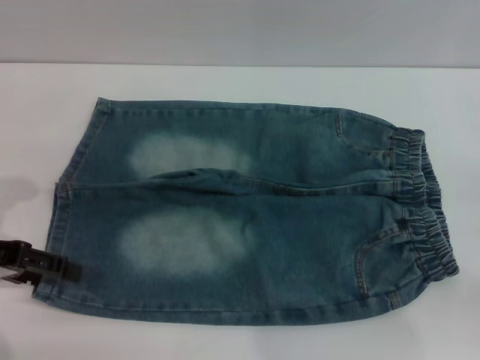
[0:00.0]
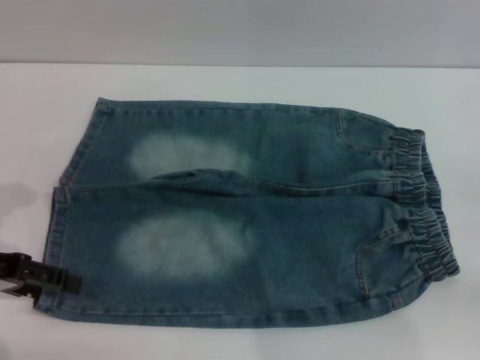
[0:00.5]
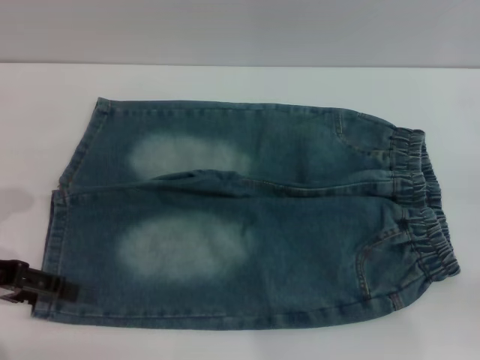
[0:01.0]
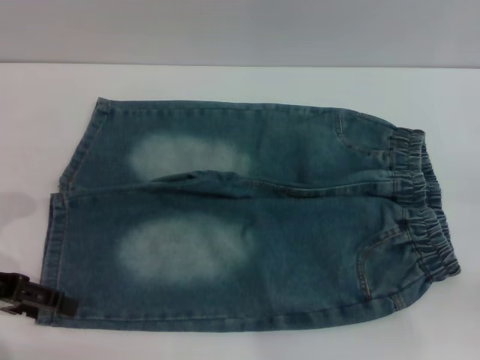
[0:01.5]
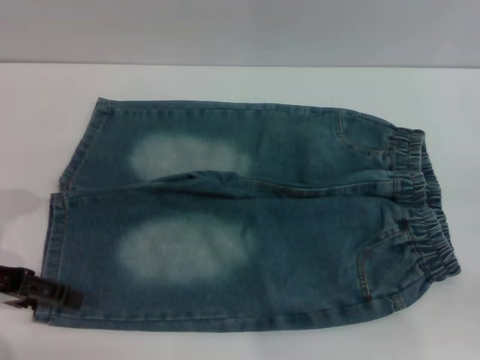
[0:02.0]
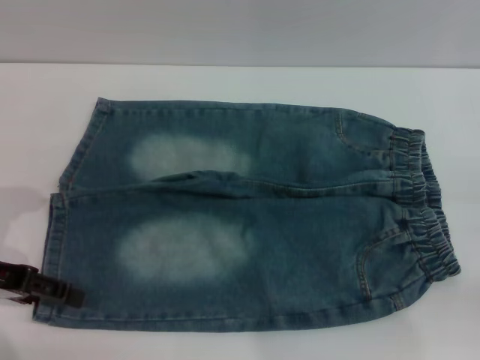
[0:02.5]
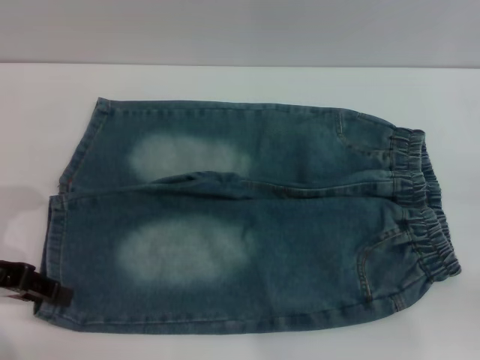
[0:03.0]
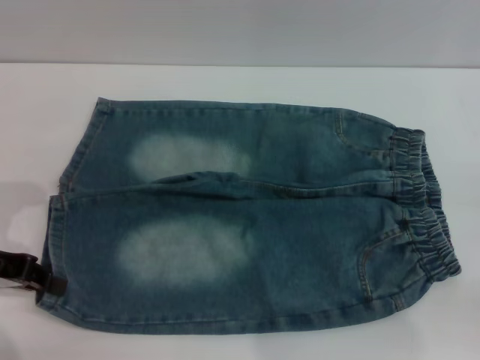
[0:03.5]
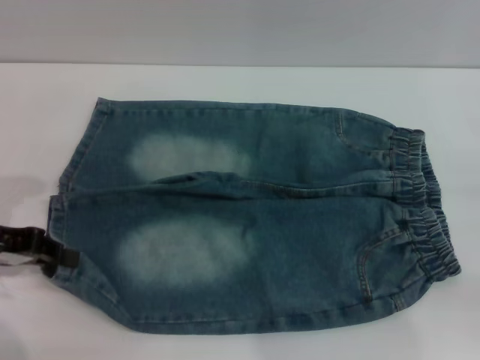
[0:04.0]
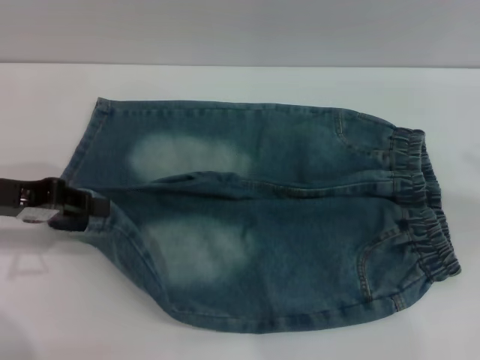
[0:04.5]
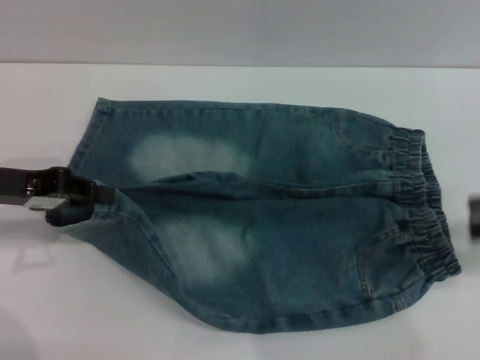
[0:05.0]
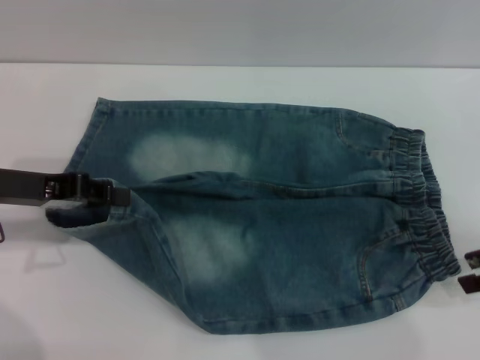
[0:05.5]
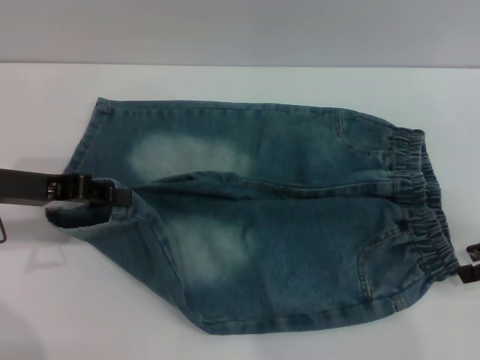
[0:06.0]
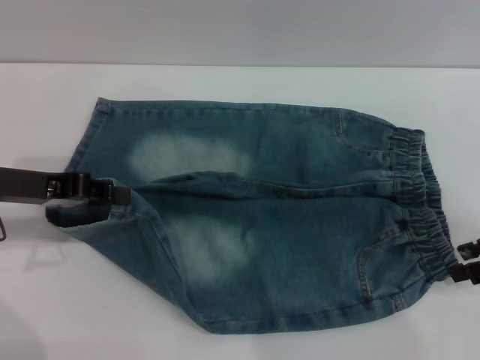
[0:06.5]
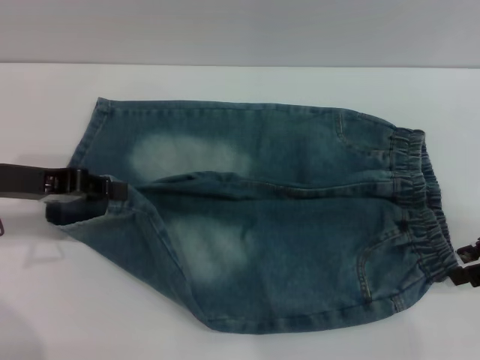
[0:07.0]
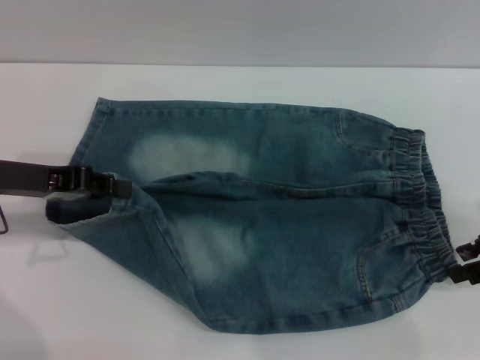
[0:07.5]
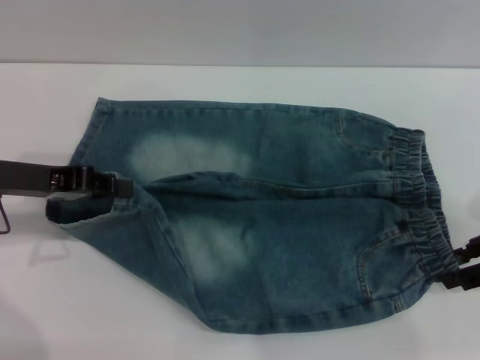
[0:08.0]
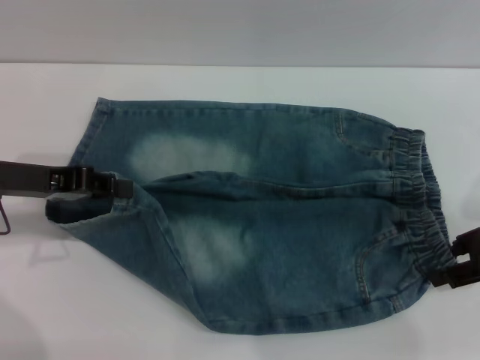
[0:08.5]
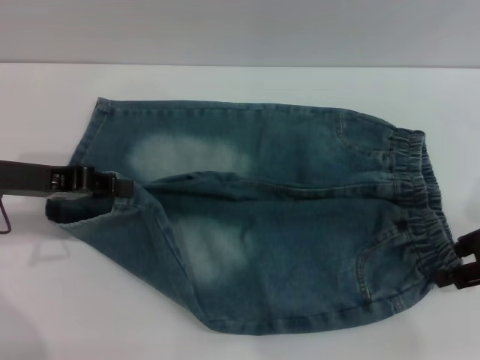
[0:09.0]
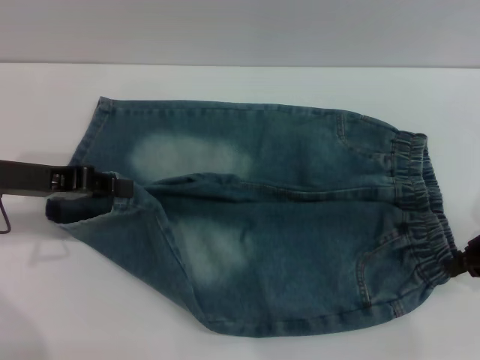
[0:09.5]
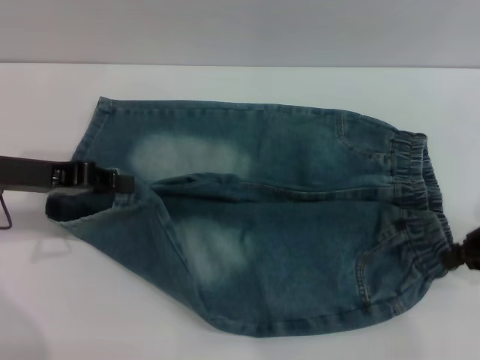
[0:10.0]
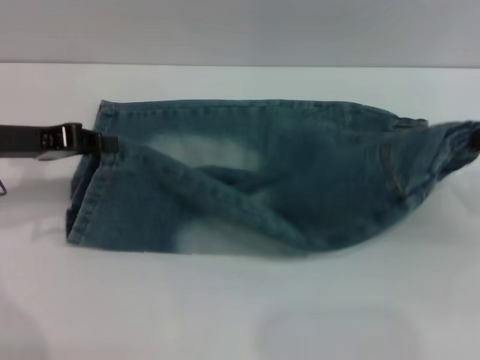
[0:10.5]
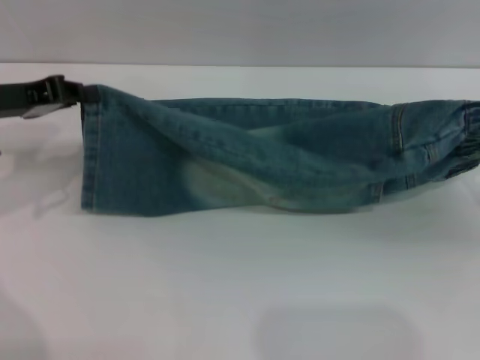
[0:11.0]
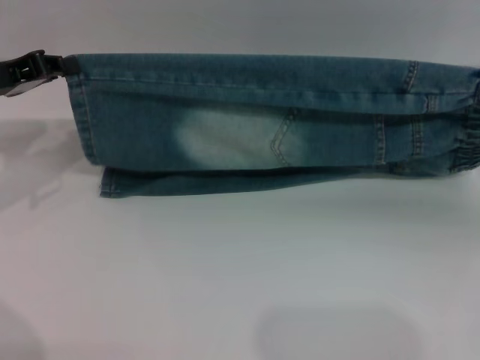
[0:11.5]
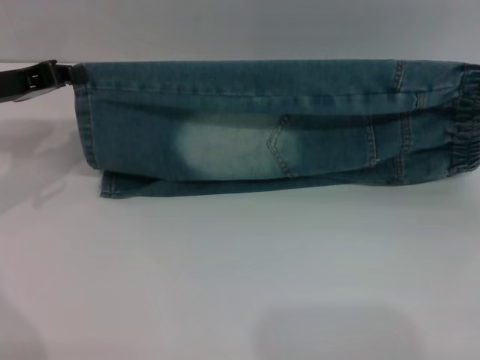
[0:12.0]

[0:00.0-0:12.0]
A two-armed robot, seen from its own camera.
0:00.0 to 0:02.0: The grippers move only a little.
0:02.0 to 0:04.0: The left gripper closes.
0:04.0 to 0:06.0: The right gripper moves to the left and forward, roughly 10 cm.
0:06.0 to 0:08.0: The grippers move only a little.
0:08.0 to 0:10.0: The right gripper closes up.
0:10.0 to 0:12.0: The left gripper ends up approximately 5 cm from where it was. Meanwhile the right gripper shifts by some 5 cm.

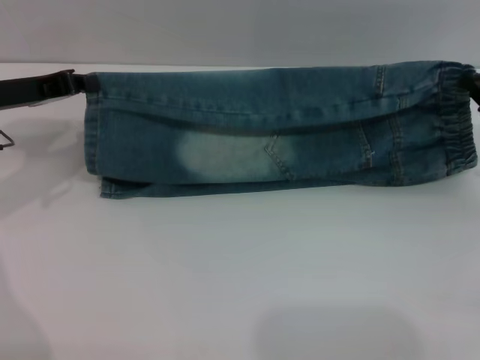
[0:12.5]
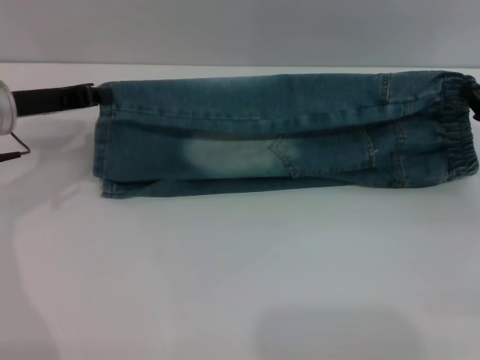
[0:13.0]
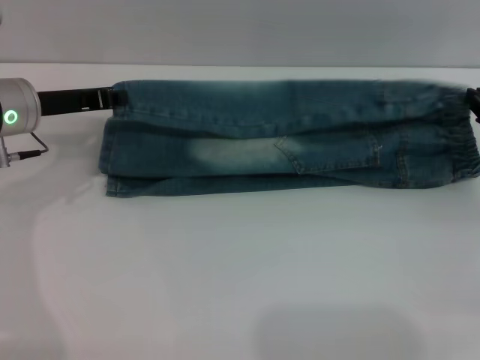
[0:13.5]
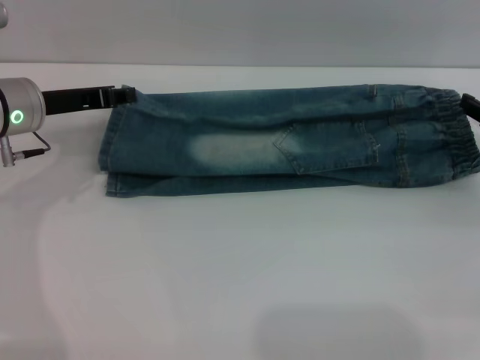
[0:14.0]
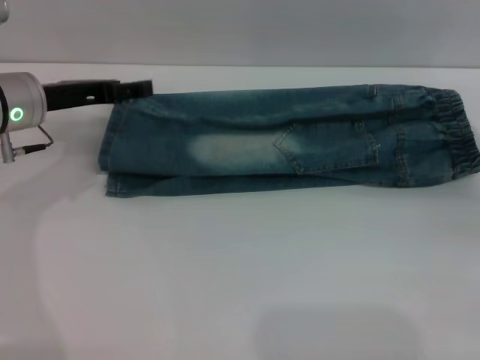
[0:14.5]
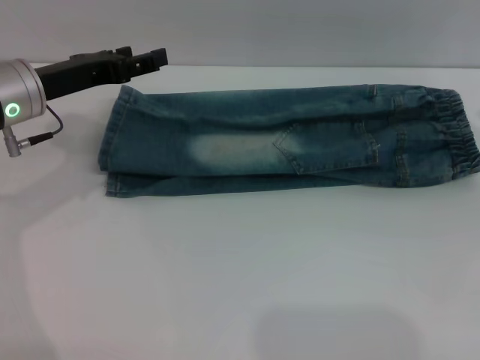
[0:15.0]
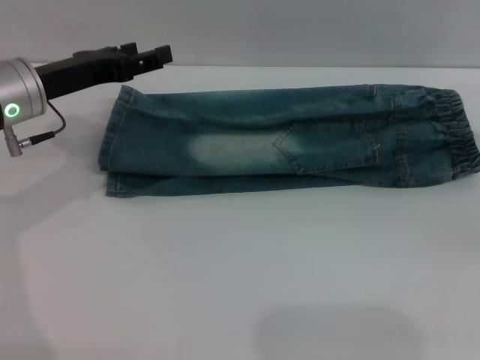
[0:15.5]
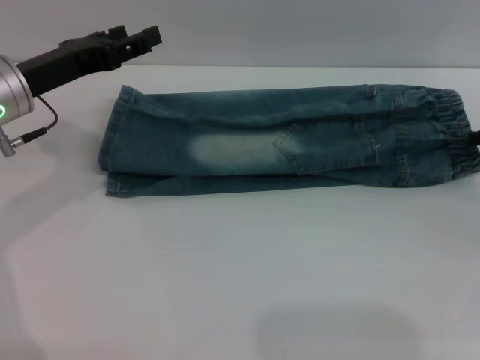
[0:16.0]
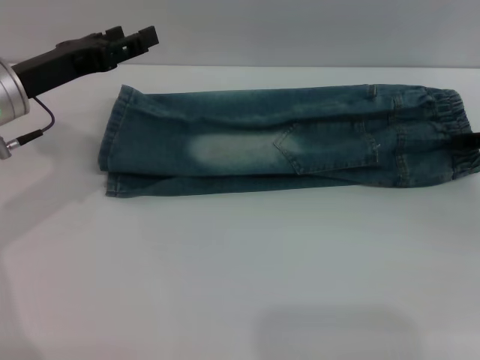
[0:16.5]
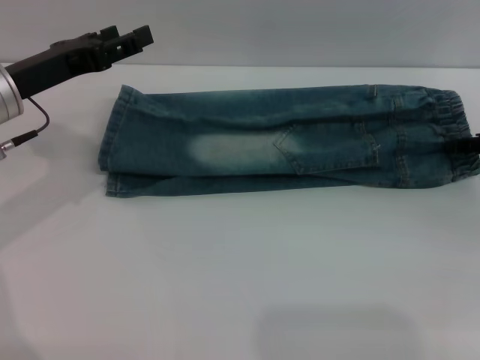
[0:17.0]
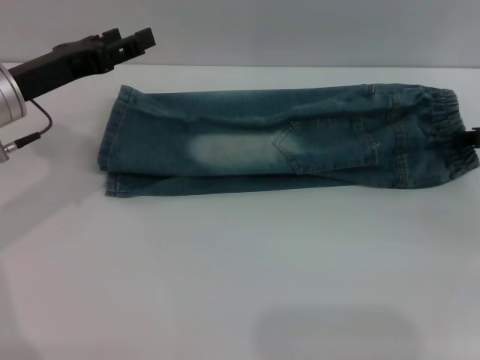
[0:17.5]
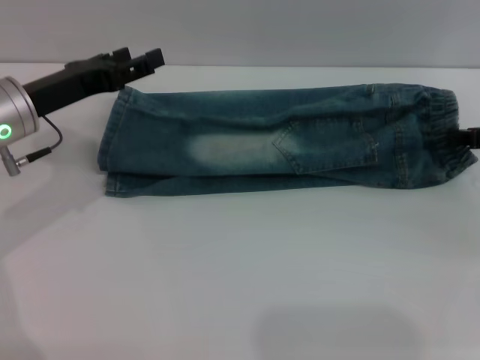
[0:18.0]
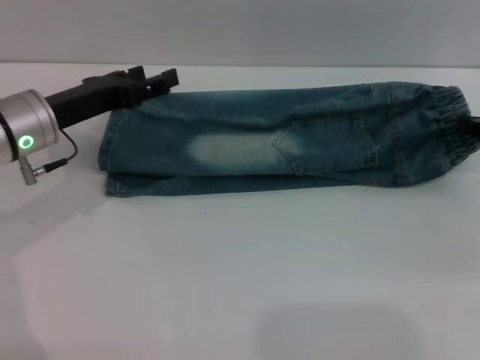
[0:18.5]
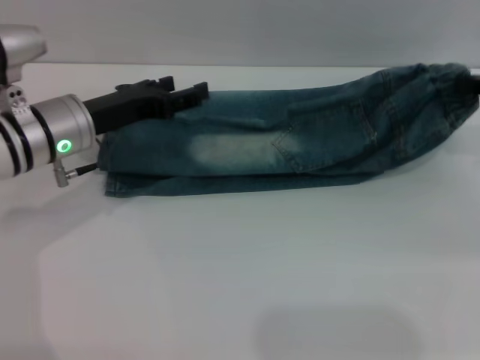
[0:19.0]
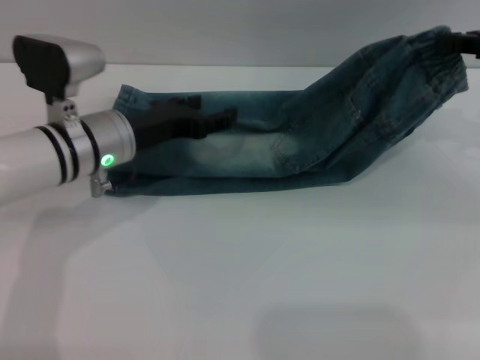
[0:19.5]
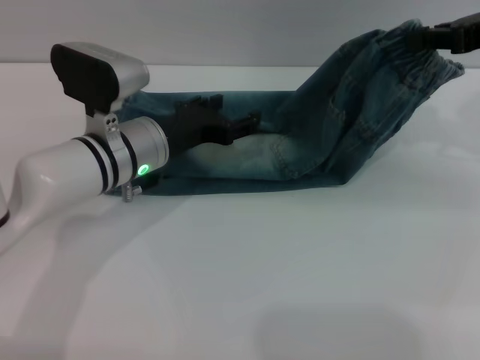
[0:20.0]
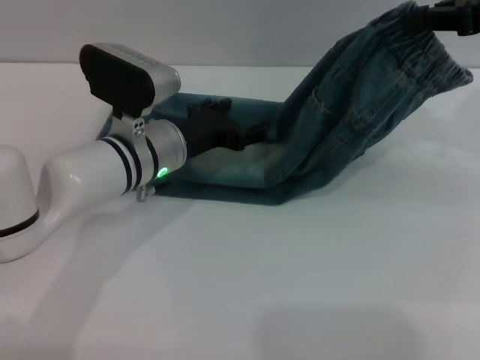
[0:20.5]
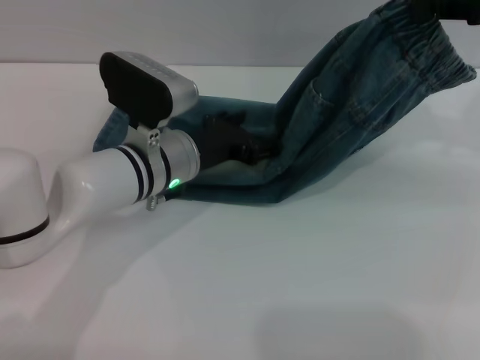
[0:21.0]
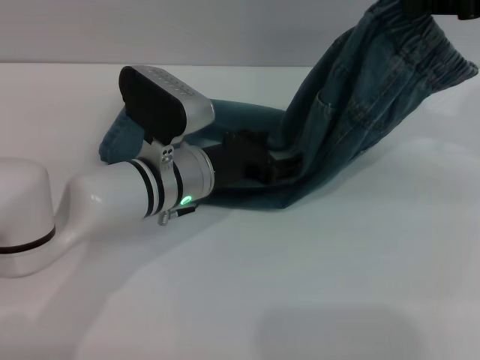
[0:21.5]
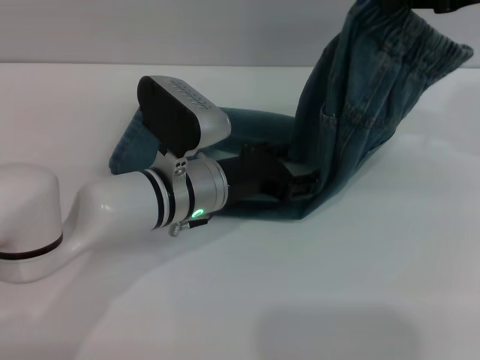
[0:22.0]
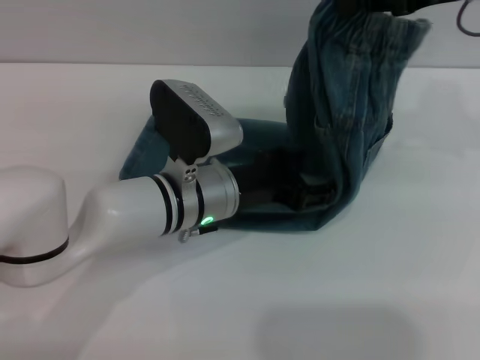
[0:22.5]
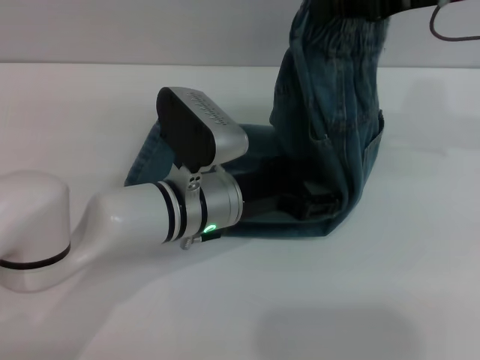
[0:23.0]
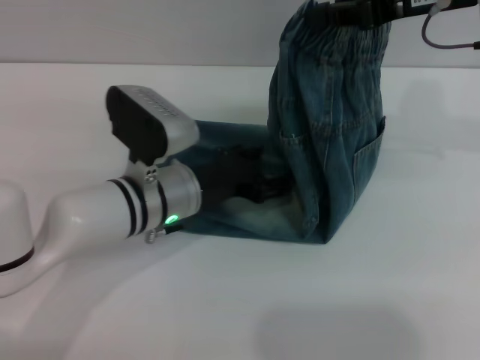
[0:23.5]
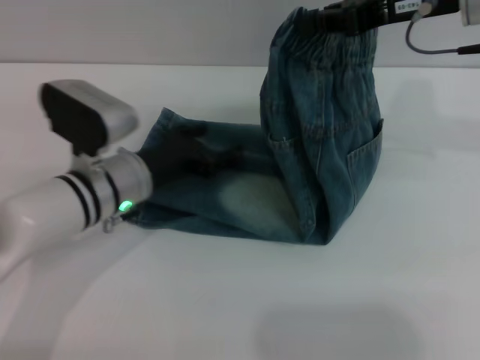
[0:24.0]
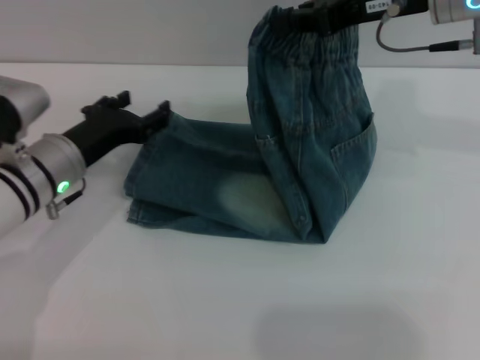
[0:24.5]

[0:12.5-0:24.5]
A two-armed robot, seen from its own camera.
Step, 0:12.5 to 0:14.5: Fold the bottom of the pants upward with both grippers.
0:12.5 to 0:14.5: The right gripper opens. Meanwhile the left gripper opens up.
0:16.5 to 0:18.5: The right gripper closes.
0:18.5 to 0:20.5: The left gripper heads to the right, covering about 10 cm. Meanwhile the right gripper travels upward by approximately 15 cm.
0:20.5 to 0:22.5: The right gripper heads to the left, covering roughly 5 cm. Meanwhile the left gripper shifts by roughly 5 cm.
0:22.5 to 0:24.5: The left gripper is displaced to the left by roughly 15 cm. Meanwhile the right gripper shifts some 5 cm to the left.

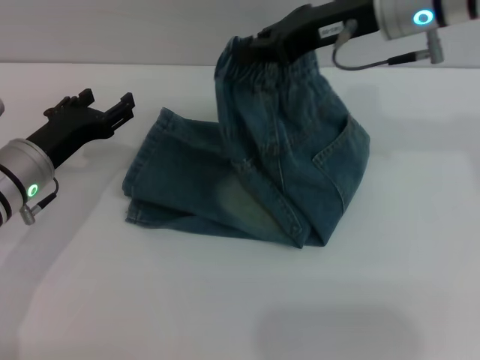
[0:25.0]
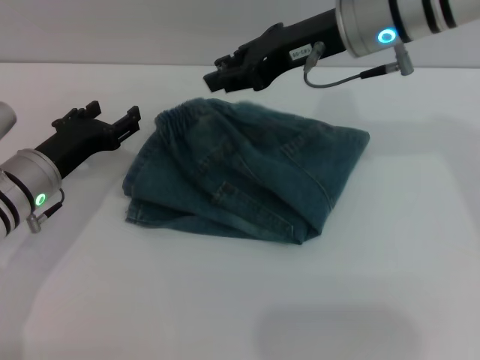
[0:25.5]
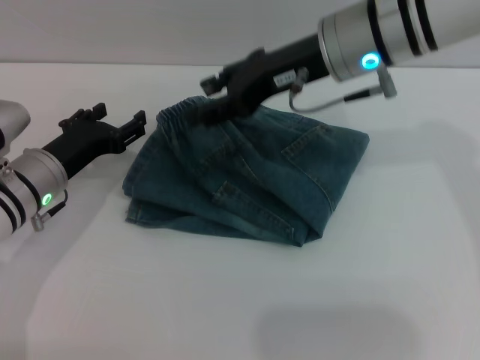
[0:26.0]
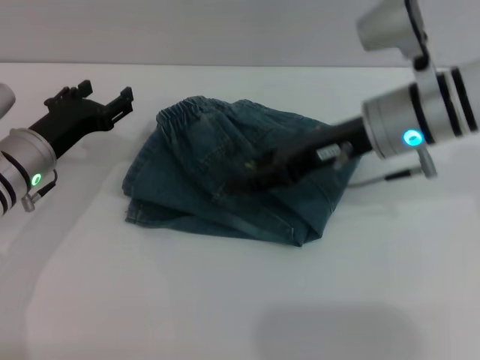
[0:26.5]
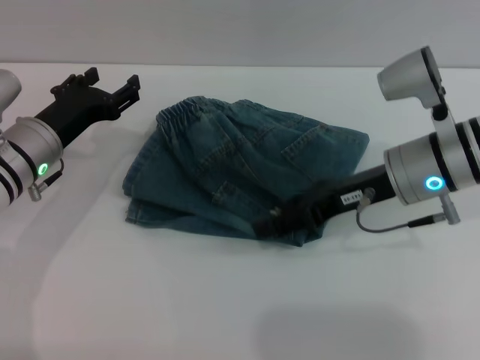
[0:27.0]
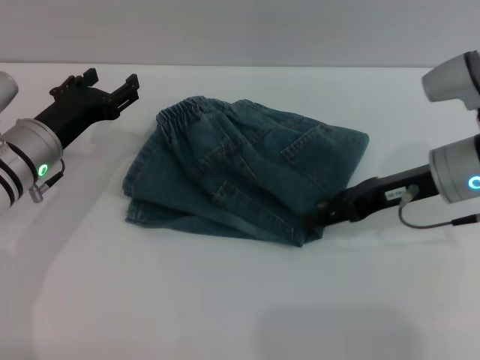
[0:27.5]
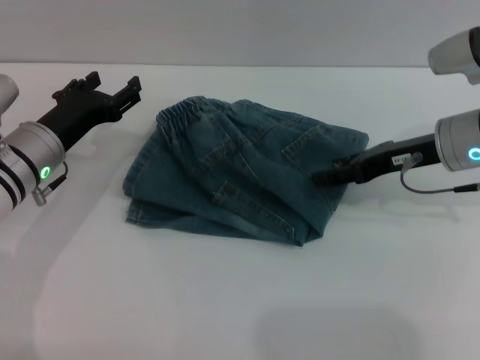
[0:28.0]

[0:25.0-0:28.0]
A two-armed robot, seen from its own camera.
0:25.0 to 0:26.5: The right gripper moves downward, approximately 10 cm, and opens its fingers.
0:26.5 to 0:28.0: The right gripper heads to the right, covering approximately 10 cm.
